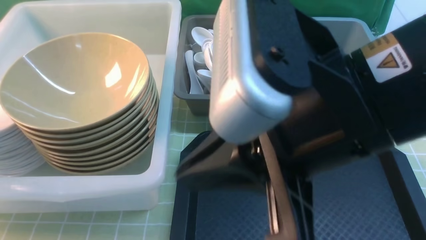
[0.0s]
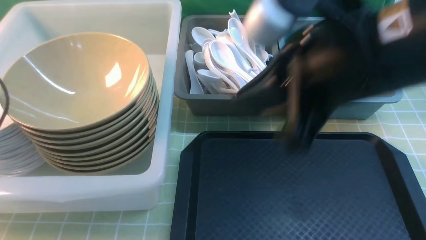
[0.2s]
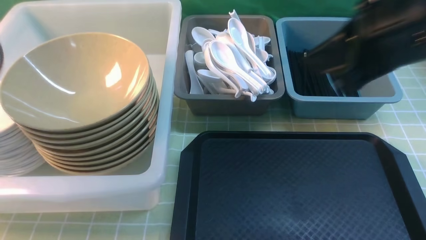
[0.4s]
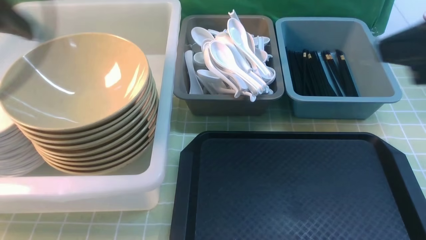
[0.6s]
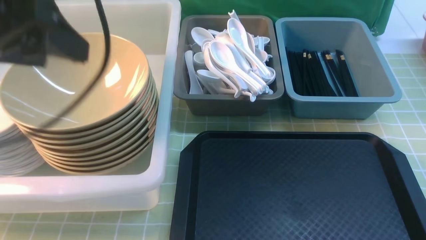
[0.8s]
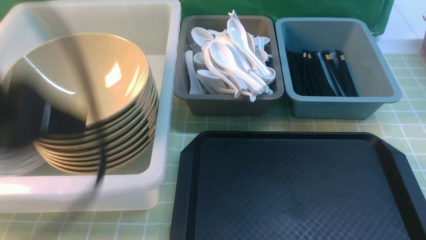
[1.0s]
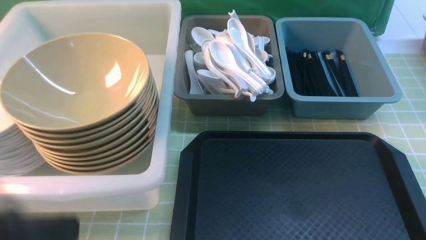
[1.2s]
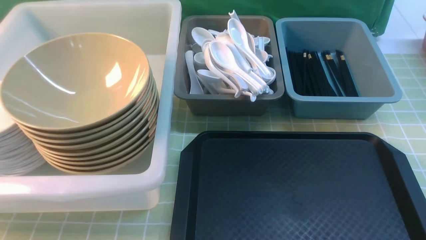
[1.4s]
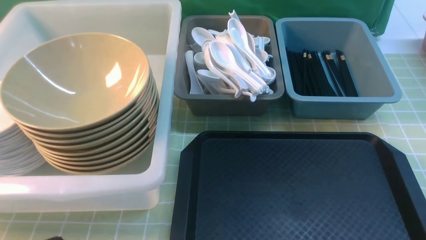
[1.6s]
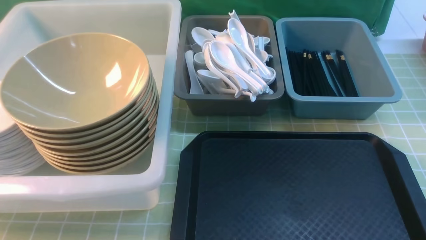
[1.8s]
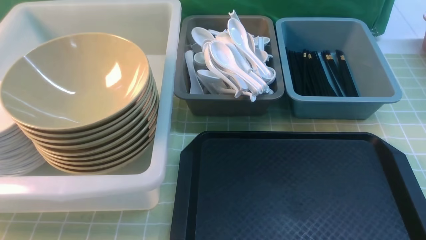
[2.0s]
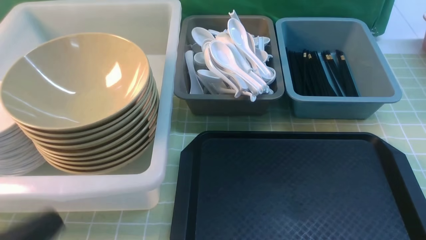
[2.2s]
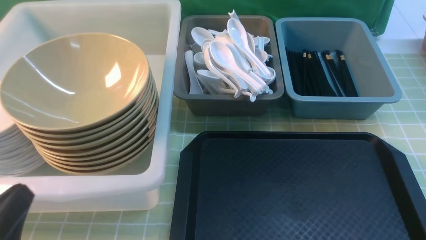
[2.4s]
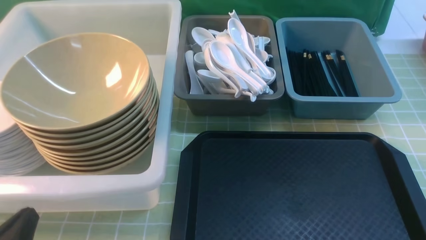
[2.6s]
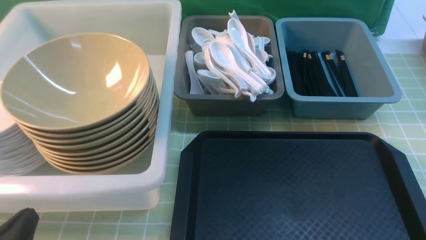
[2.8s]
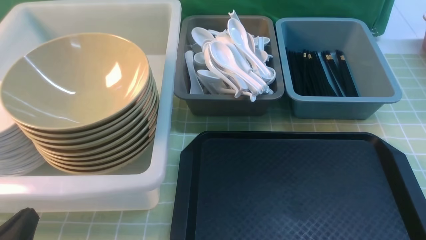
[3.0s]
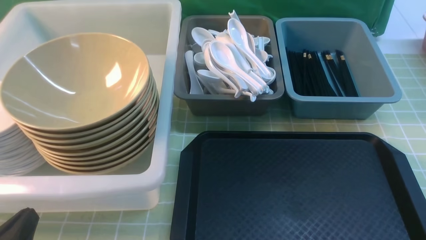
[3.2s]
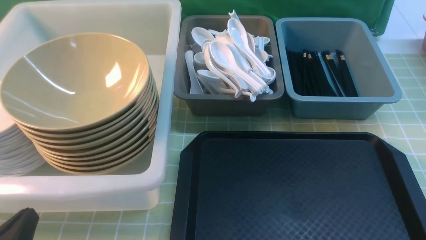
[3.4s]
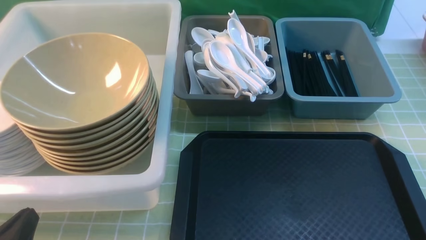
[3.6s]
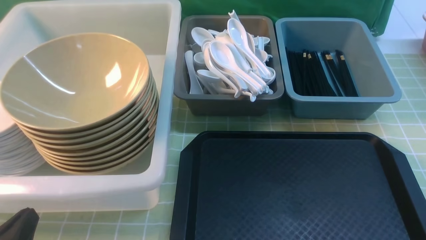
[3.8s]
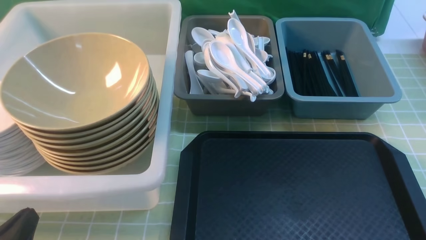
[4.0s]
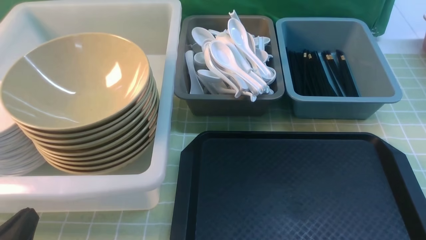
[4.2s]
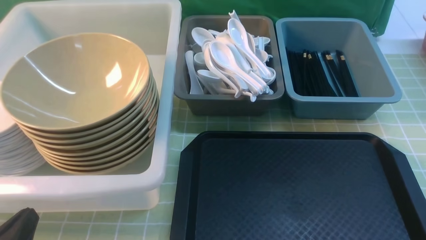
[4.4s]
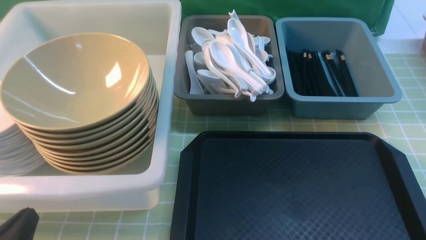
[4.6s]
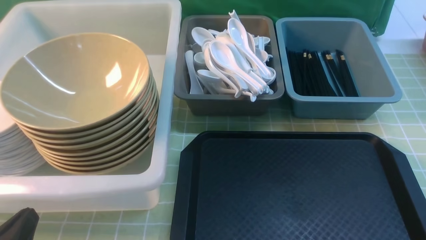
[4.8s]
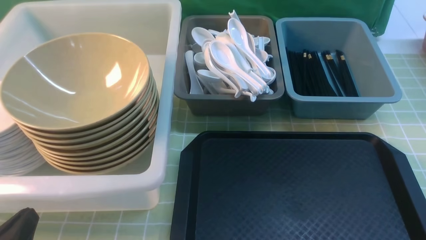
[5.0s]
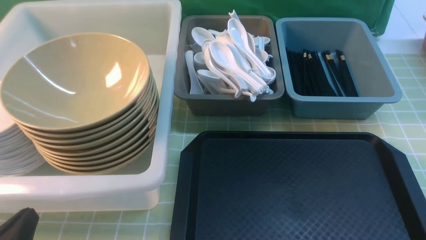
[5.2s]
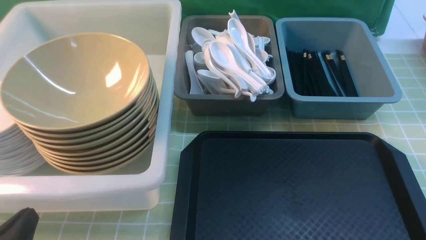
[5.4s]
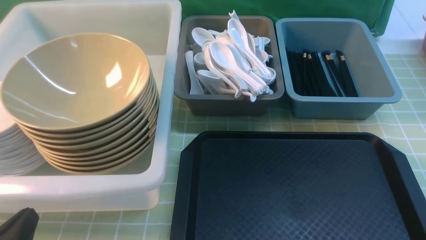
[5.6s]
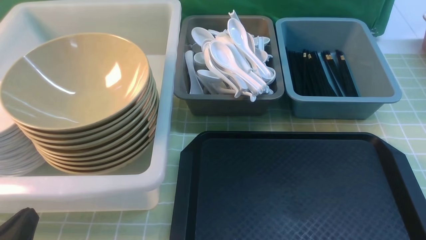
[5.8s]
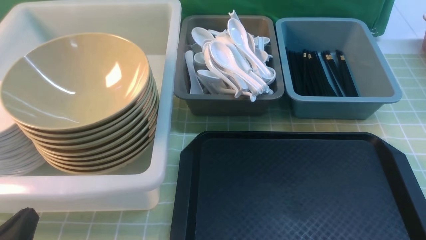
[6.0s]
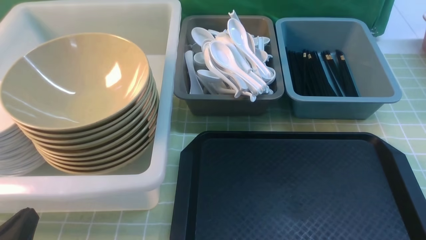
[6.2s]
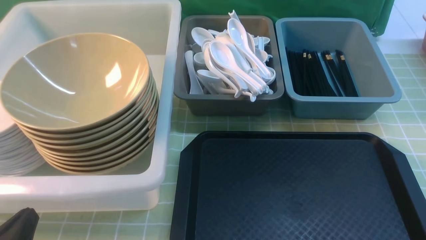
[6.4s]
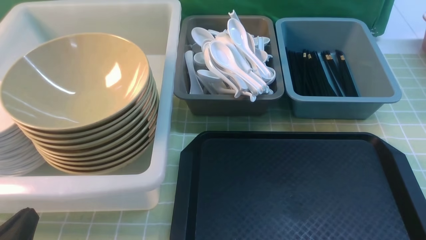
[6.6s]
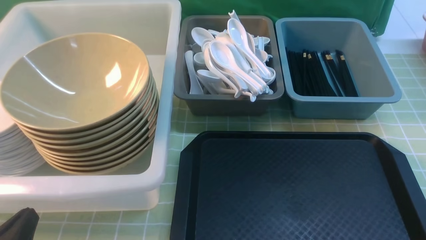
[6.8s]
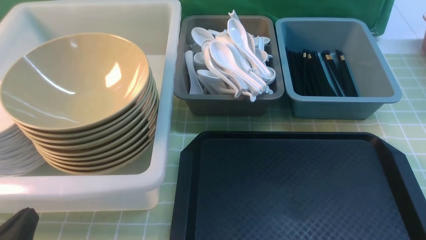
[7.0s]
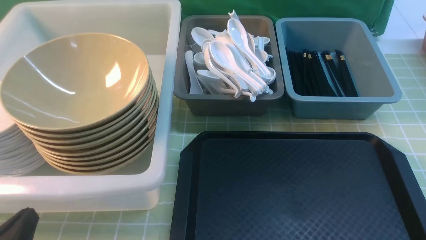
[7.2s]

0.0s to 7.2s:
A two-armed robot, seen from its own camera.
Task of the whole recording: on green table put chopsticks spoon bowls plates into blue grey white boxes.
0.0s to 1.4s: The right gripper heads to the right, downward and backward, covering some 30 cm; the left gripper travels backward and to the right by some 30 cm, and closes.
1.4s to 2.8s: The left gripper travels downward by roughly 15 cm.
4.4s to 7.2s: Both grippers stay about where they are.
